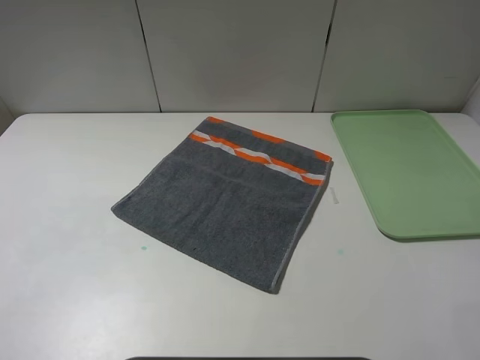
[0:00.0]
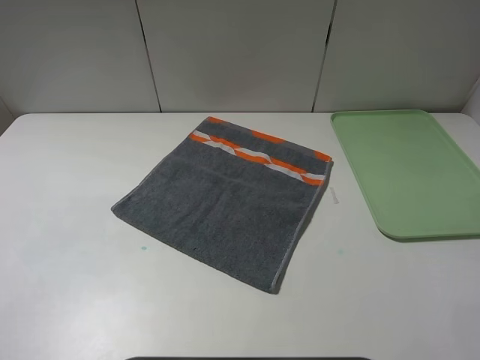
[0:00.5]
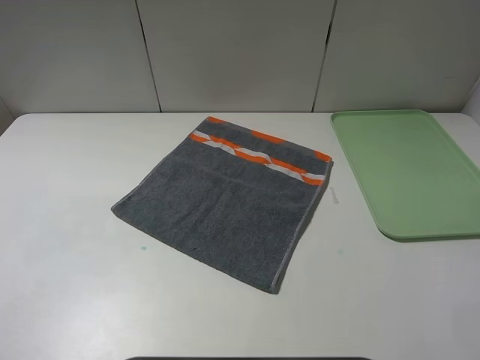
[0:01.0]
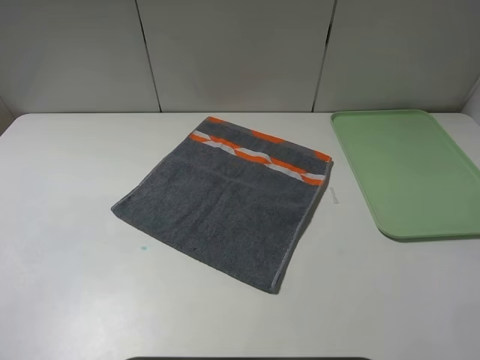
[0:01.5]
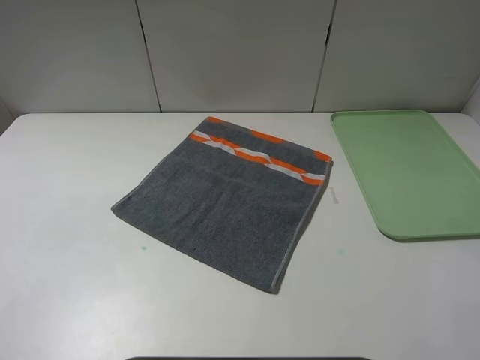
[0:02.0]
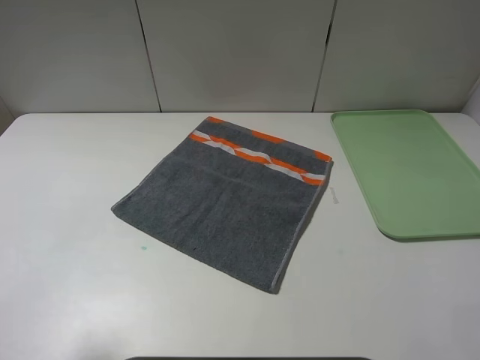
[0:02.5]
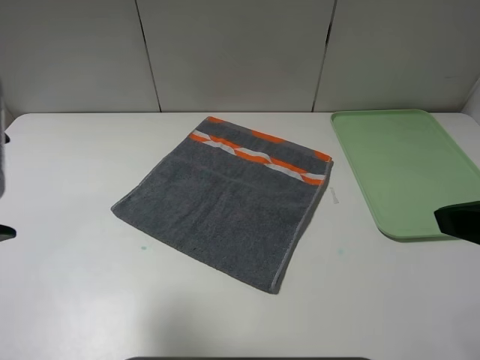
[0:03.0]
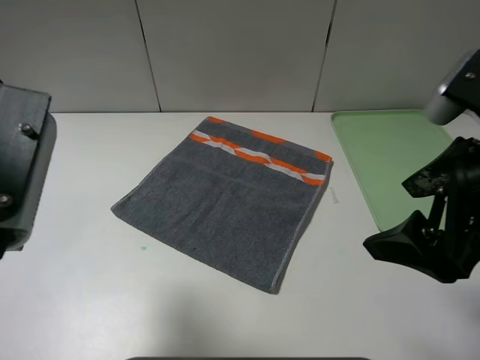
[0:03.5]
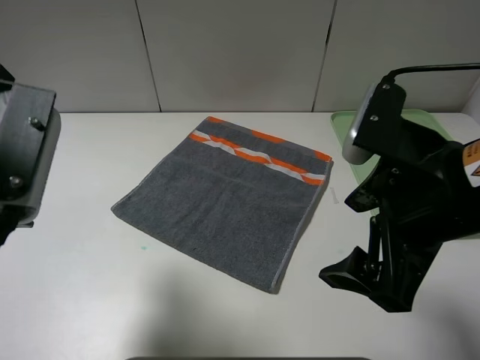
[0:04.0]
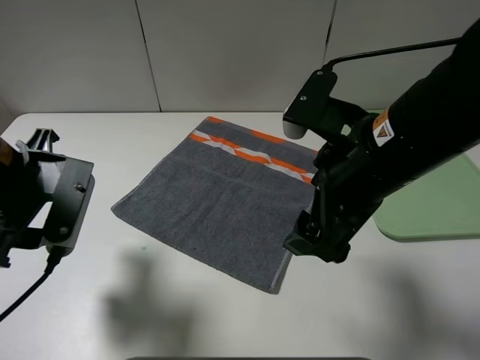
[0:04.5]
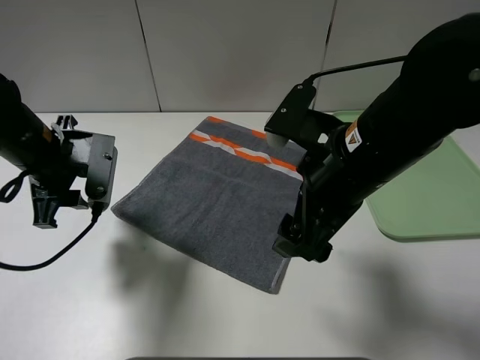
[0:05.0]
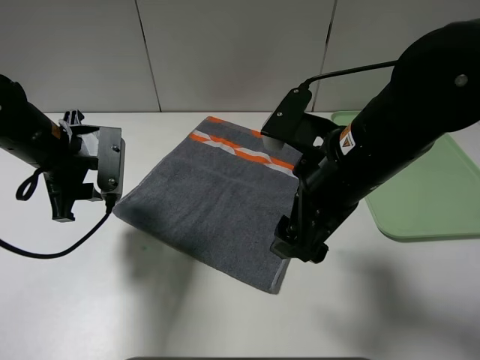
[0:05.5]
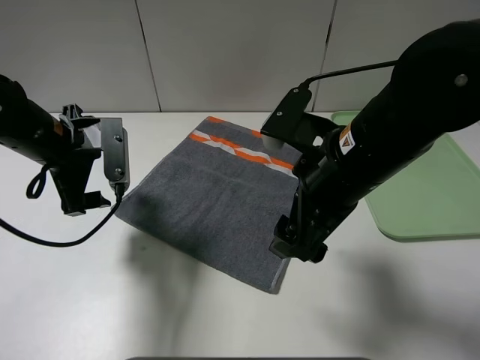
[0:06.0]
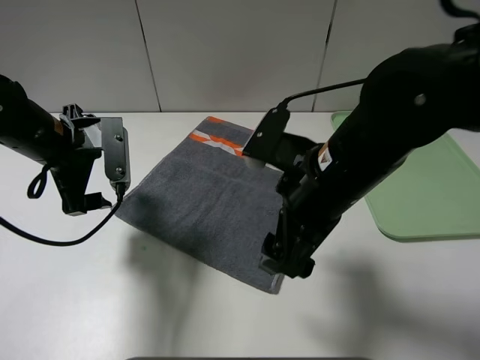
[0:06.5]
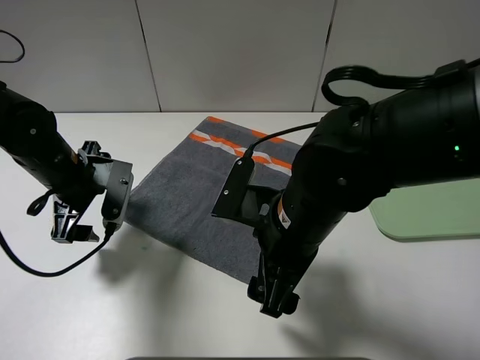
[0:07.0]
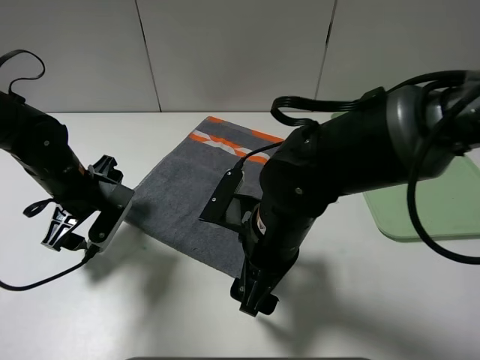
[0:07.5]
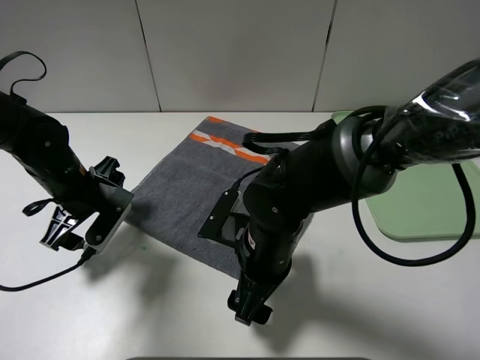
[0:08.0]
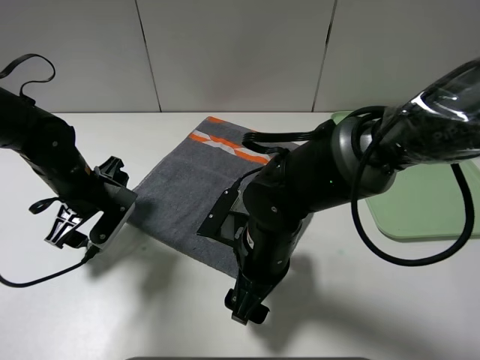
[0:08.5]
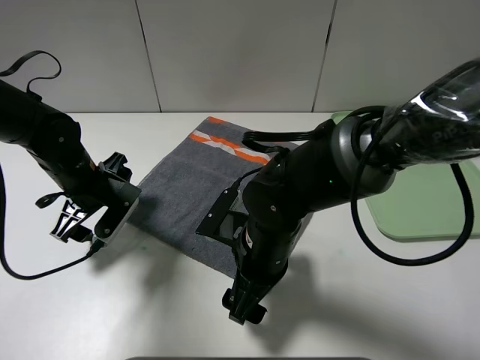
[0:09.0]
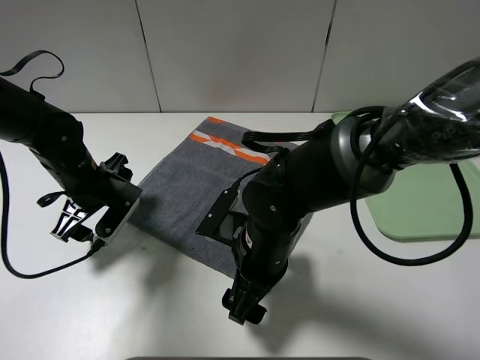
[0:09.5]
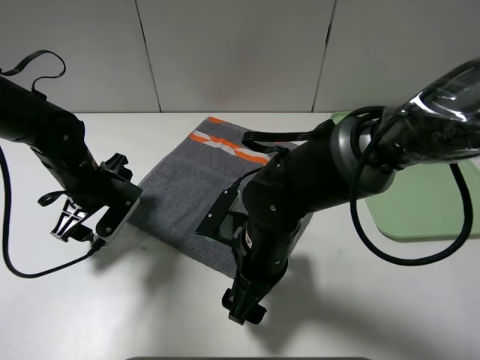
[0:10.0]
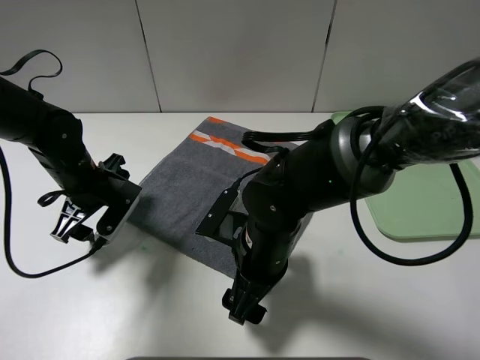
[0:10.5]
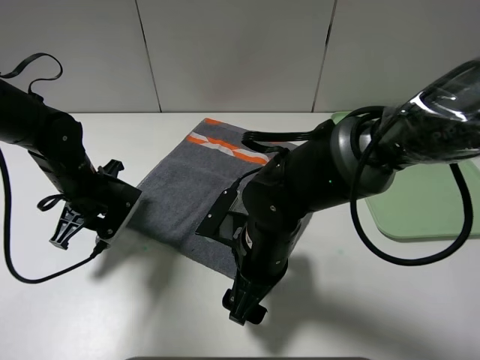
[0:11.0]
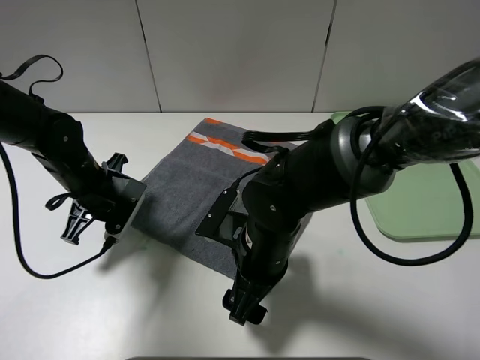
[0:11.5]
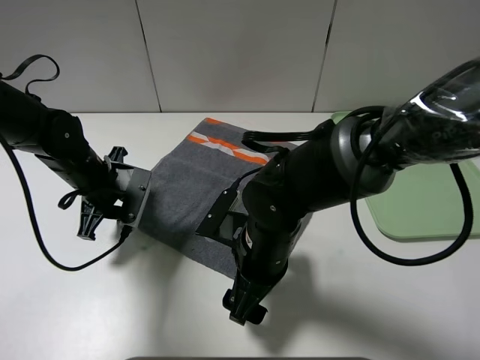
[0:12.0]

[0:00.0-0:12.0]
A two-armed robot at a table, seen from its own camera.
2.0 to 4.0 s: The right gripper shifts roughly 20 cm to the left and forward. Meanwhile the left gripper moves forward and to the right, about 20 cm.
4.0 to 6.0 s: The left gripper goes about 15 cm forward and downward. The right gripper moves forward and to the left, about 10 cm.
6.0 to 8.0 s: The left gripper shifts roughly 5 cm downward, while the right gripper shifts roughly 15 cm downward and to the left.
8.0 to 10.0 s: The grippers make only small movements.
10.0 to 12.0 s: The left gripper closes its fingers.

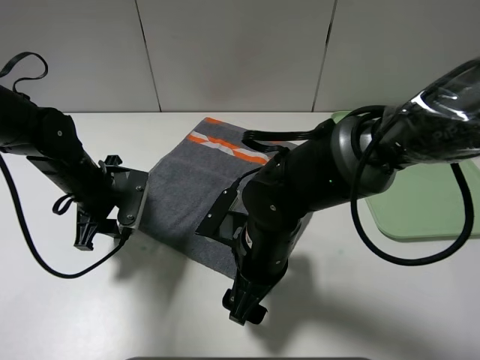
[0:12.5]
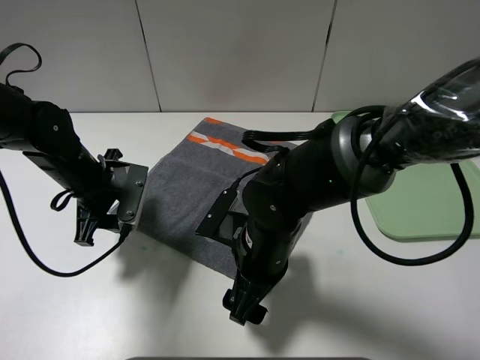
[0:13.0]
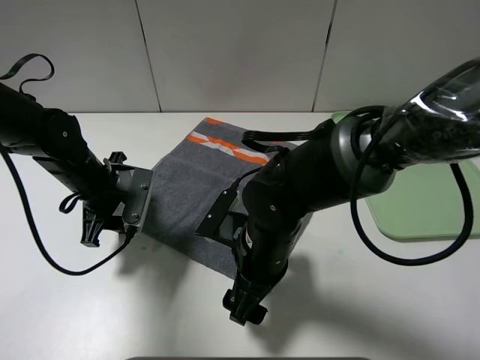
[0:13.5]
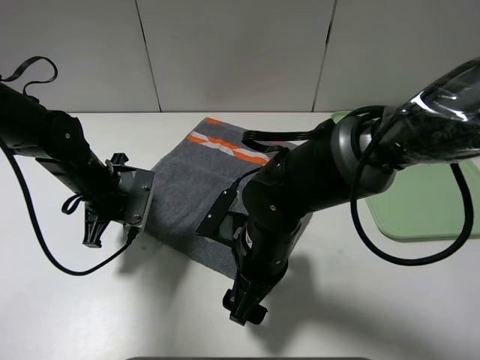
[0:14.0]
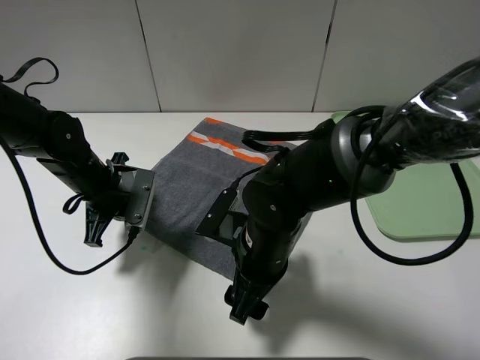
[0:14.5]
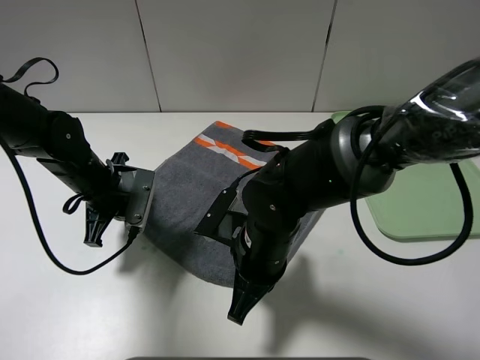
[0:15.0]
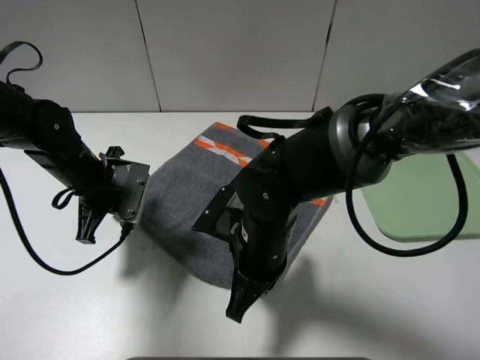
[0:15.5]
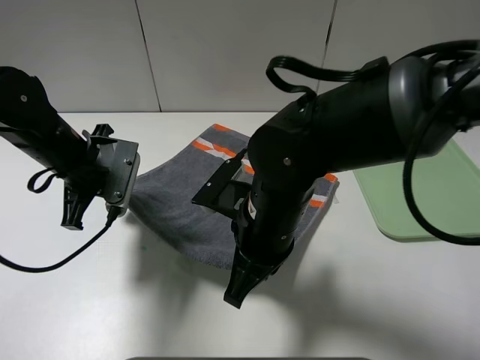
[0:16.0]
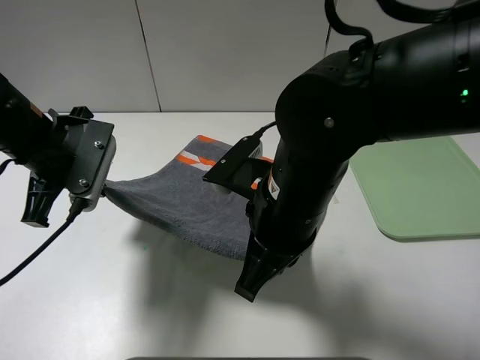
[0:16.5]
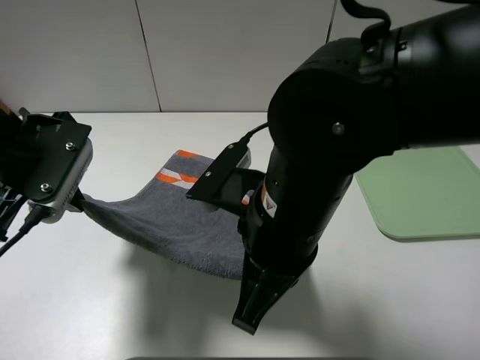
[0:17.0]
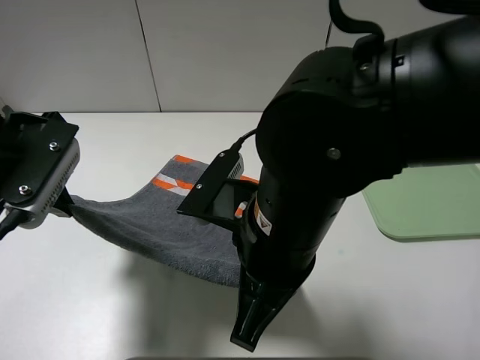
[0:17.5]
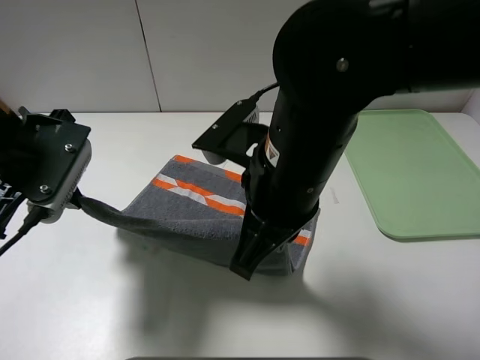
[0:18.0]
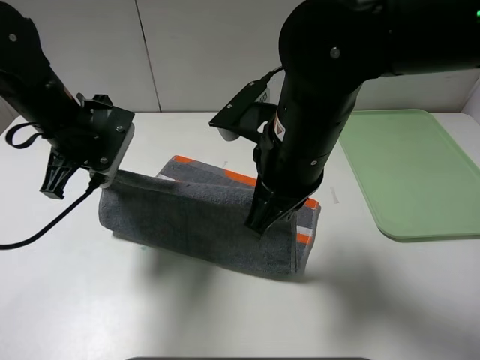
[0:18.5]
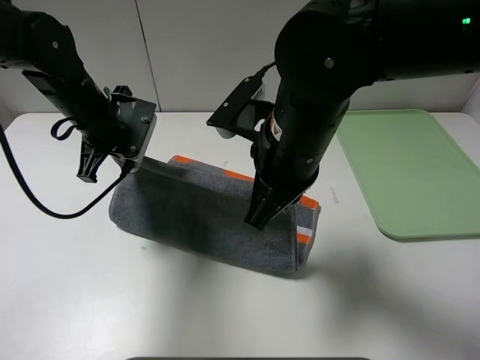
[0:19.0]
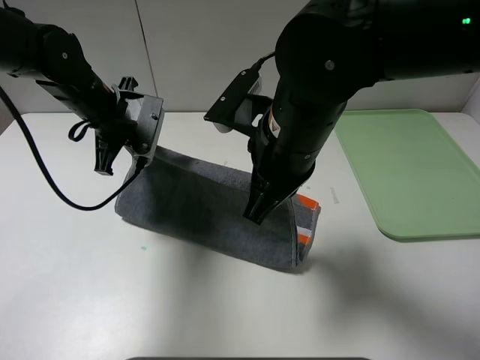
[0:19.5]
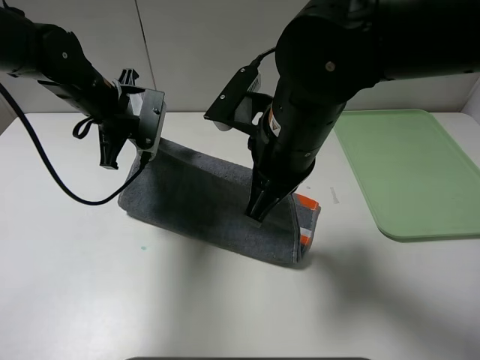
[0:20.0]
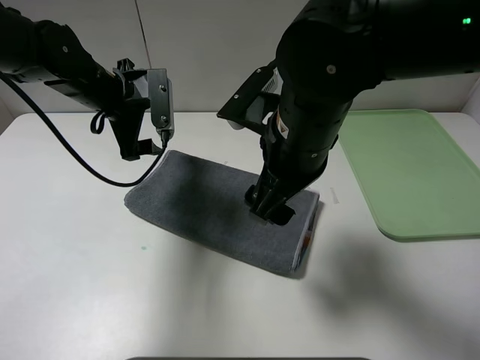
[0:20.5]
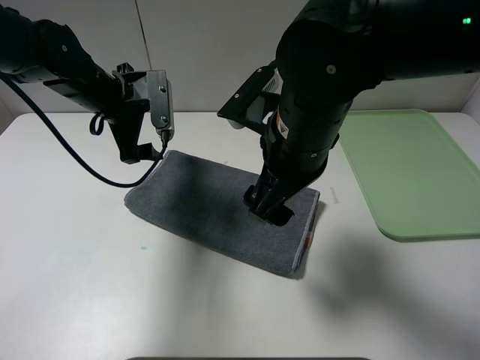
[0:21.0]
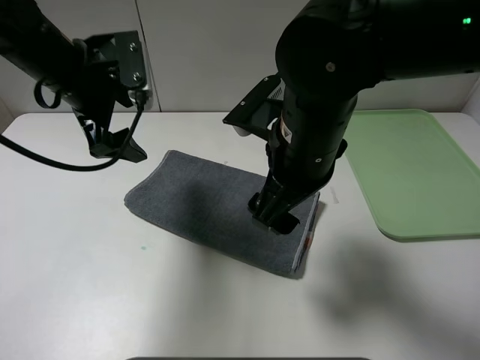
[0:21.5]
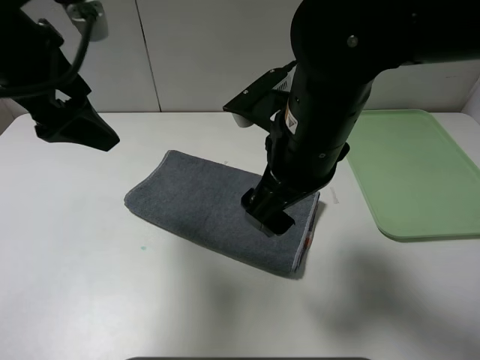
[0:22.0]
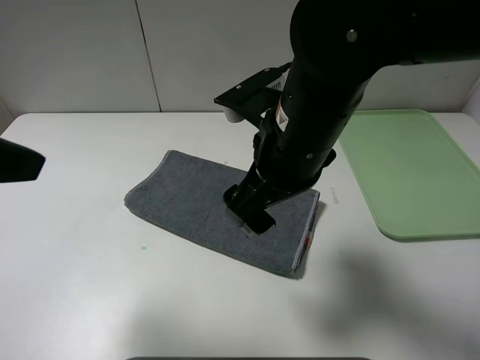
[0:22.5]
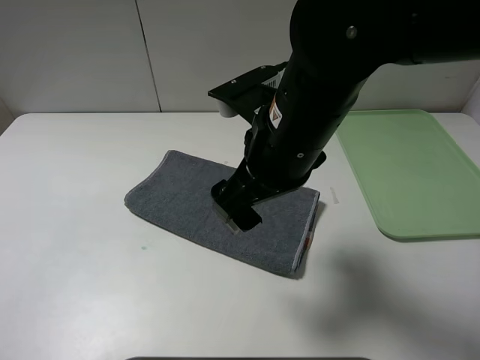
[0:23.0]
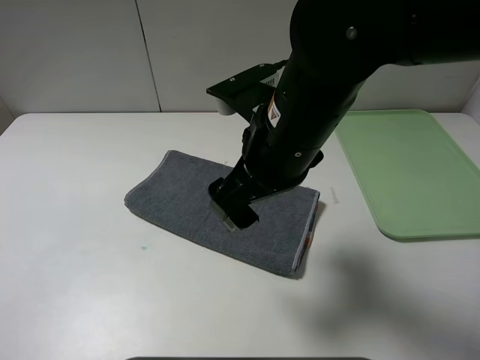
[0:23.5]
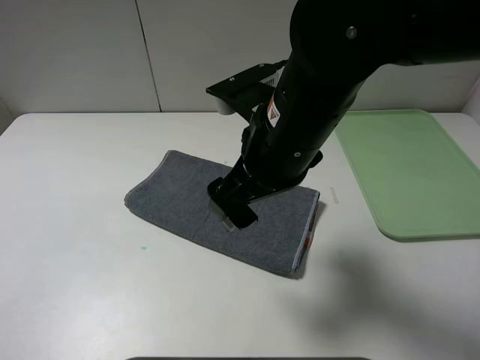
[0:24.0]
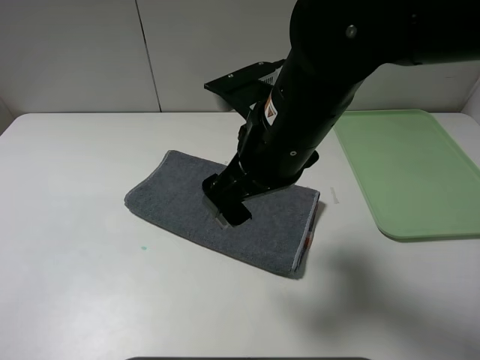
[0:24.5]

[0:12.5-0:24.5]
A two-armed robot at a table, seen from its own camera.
Step, 12.5 to 20.5 s: Fold the grey towel upwards.
12.5 to 14.5 s: The left gripper closes.
14.5 to 16.5 s: Both grippers move upward, some 10 cm. The right gripper closes its fingers.
16.5 to 18.5 s: The left gripper goes some 5 cm forward.
18.5 to 20.5 s: The left gripper moves forward, about 5 cm, and opens up. The right gripper opens.
20.5 to 22.5 s: The left gripper heads backward and upward, covering about 30 cm.
22.5 to 24.5 s: The left gripper moves backward, downward and to the left, roughly 15 cm.

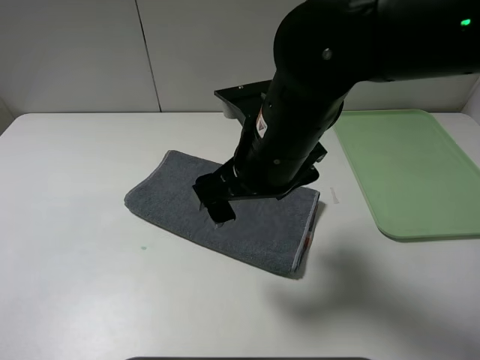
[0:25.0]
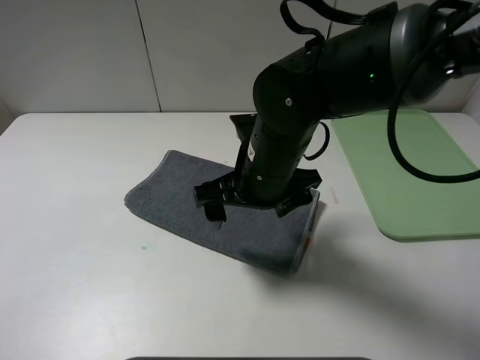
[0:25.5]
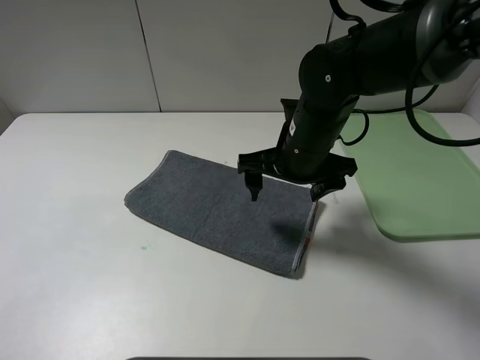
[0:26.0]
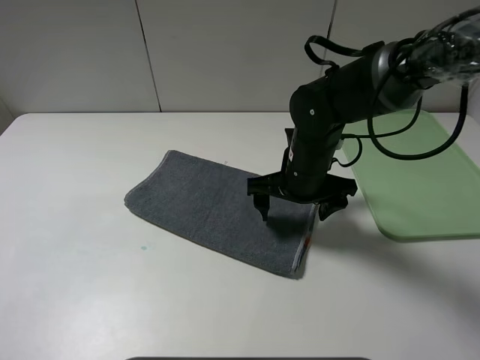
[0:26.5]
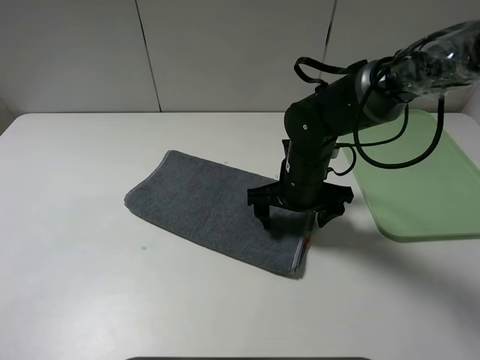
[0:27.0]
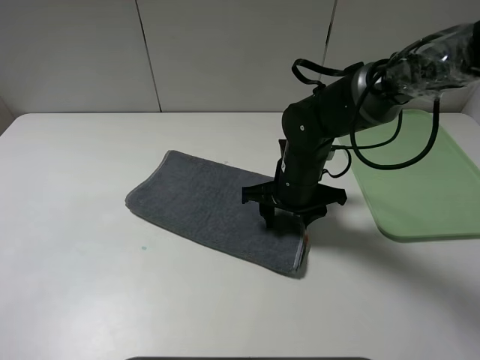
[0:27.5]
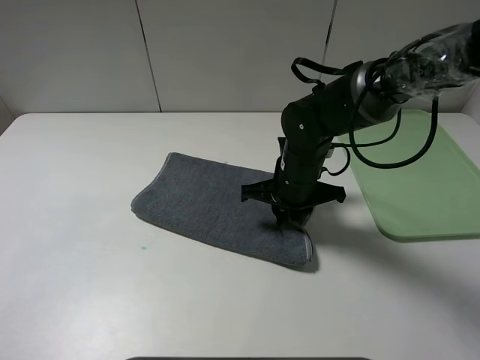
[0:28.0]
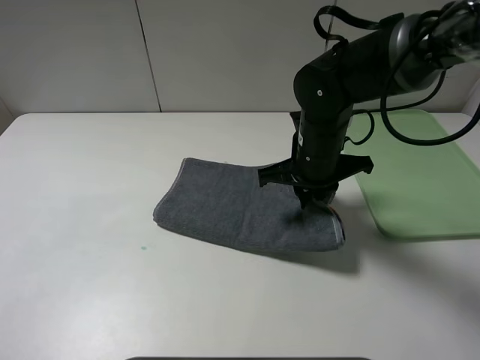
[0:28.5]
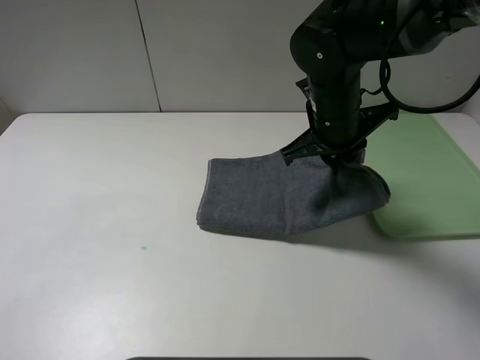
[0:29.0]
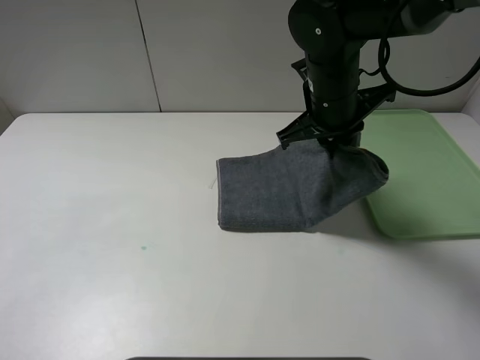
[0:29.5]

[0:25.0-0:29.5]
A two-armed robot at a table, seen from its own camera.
25.0 to 27.0 s: The right gripper heads downward, forward and to the right, covering some 15 cm.
27.0 to 29.5 s: The right gripper is displaced upward by about 10 cm, and closes up.
